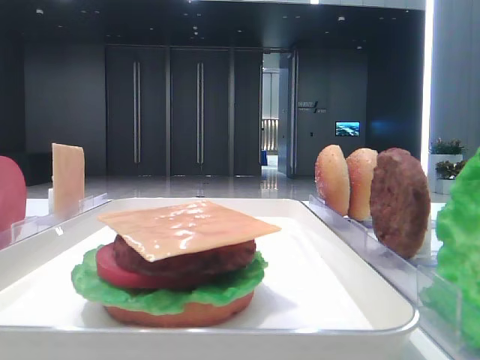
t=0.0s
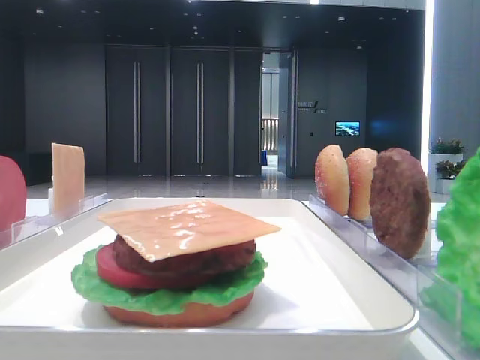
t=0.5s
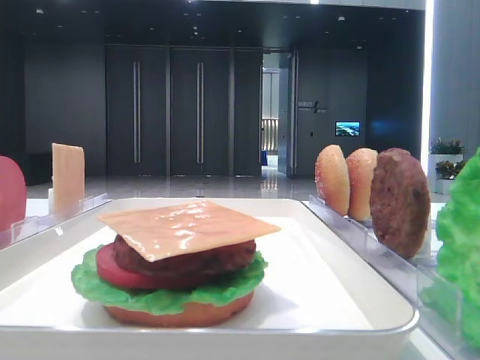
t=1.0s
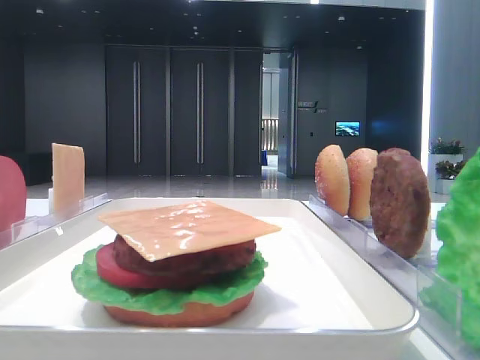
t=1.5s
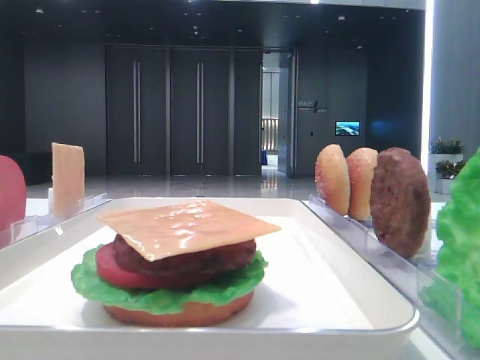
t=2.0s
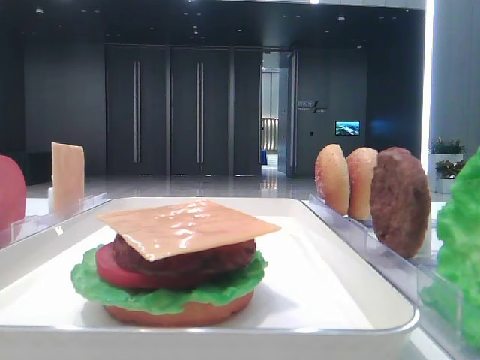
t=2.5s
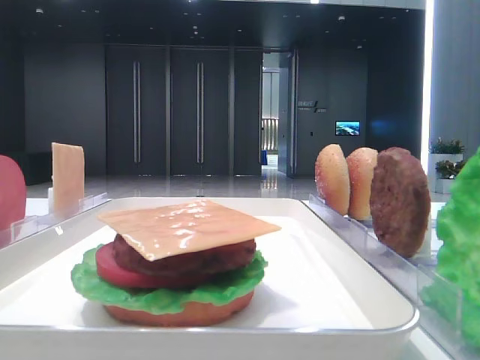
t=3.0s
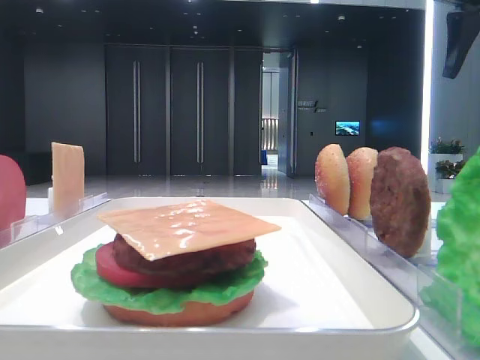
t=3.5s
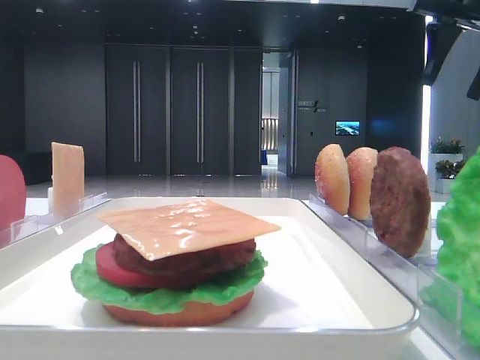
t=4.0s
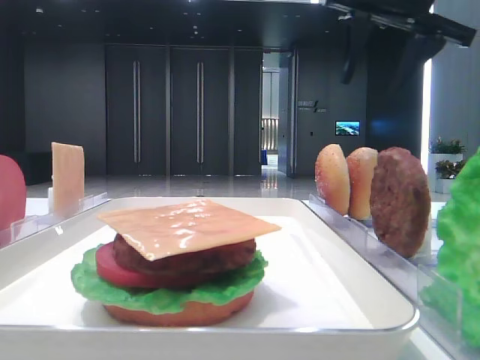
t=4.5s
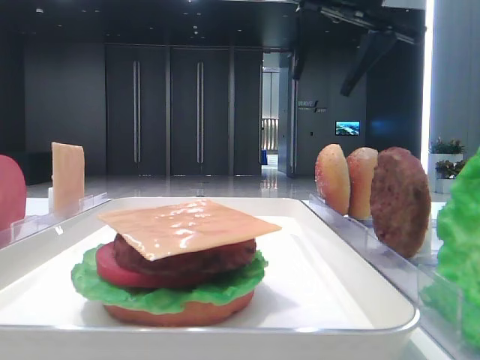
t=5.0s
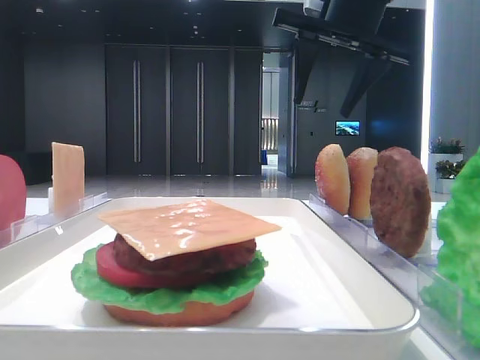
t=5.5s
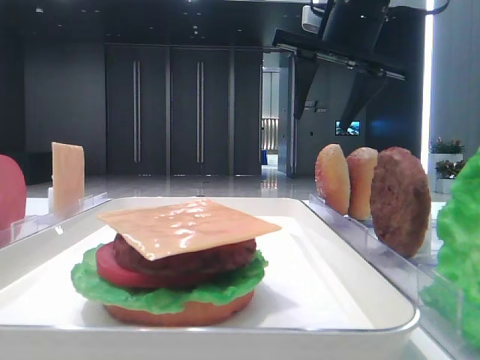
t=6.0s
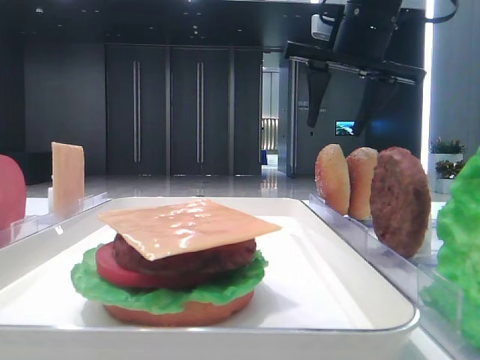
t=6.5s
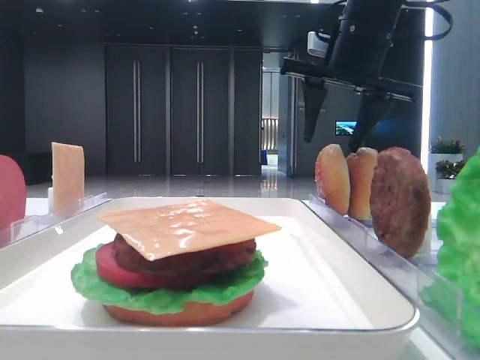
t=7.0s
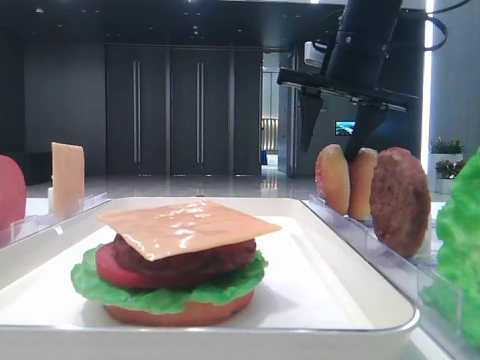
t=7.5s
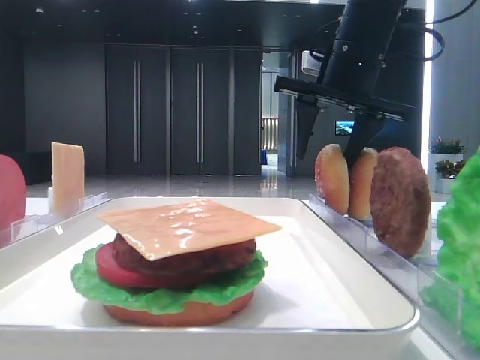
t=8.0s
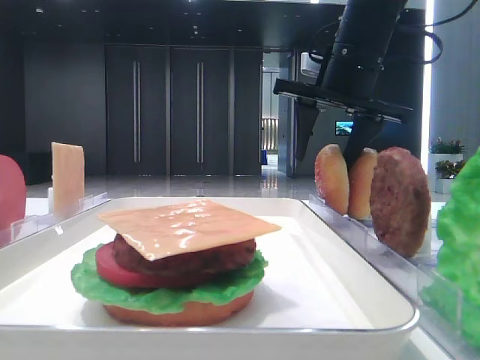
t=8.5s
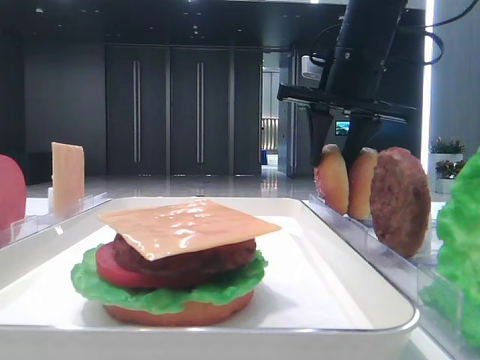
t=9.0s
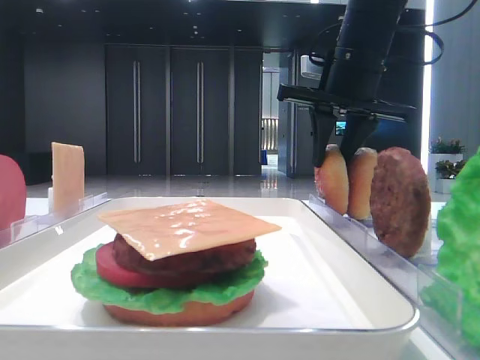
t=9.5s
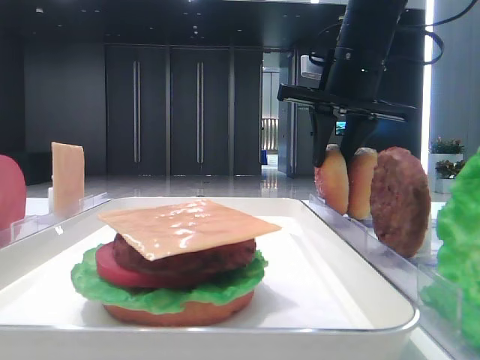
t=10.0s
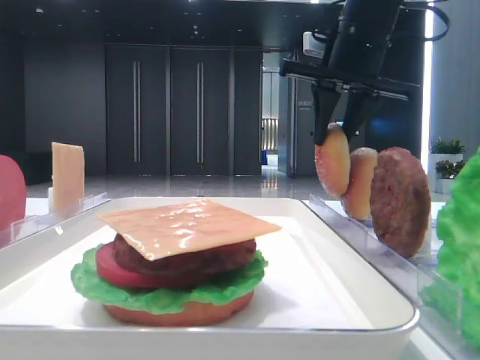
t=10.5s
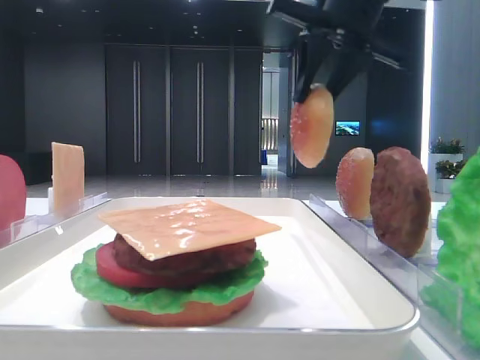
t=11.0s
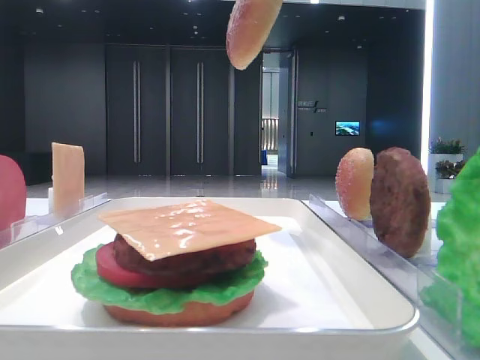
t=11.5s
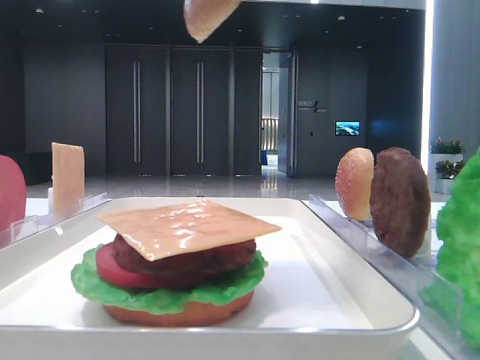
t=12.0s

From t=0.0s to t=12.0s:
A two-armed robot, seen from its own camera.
Step, from t=0.0s to t=9.0s: Pick up the top bread slice with the right hand.
From t=2.0s to t=4.0s: The right gripper heads forward, covering some 25 cm.
From t=4.0s to t=6.0s: The right gripper shifts roughly 15 cm to the left.
From t=6.0s to t=8.0s: There are only small adjustments of the grippers.
From t=8.0s to t=10.0s: The right gripper closes up.
From t=10.0s to t=12.0s: The right gripper is displaced backward and upward by roughly 20 cm.

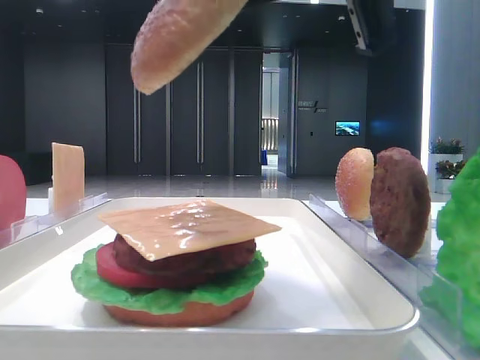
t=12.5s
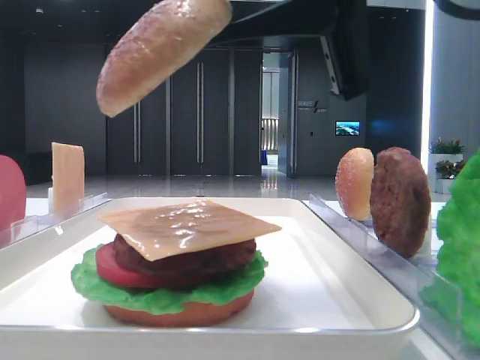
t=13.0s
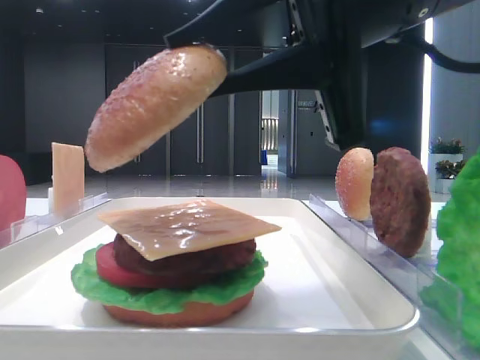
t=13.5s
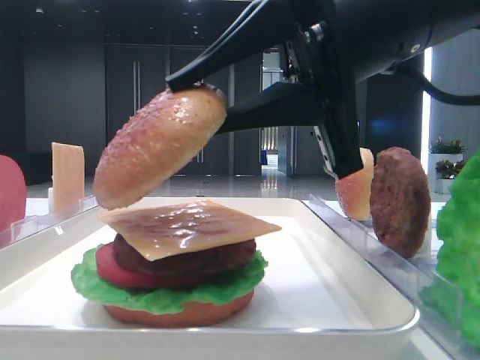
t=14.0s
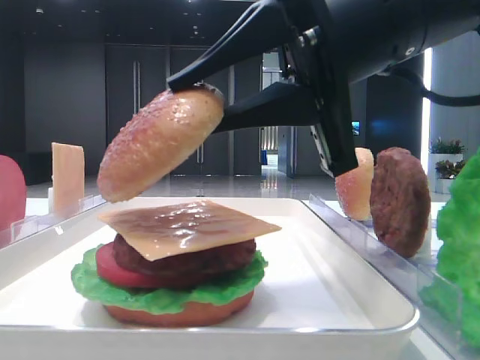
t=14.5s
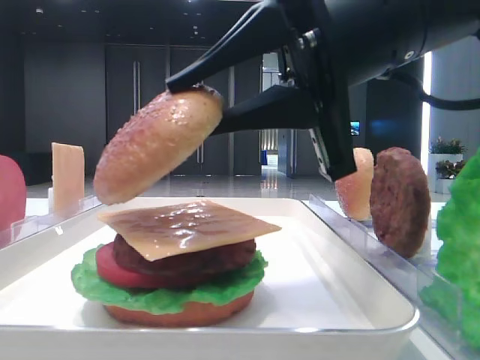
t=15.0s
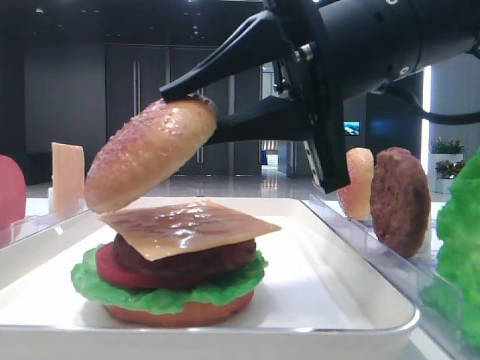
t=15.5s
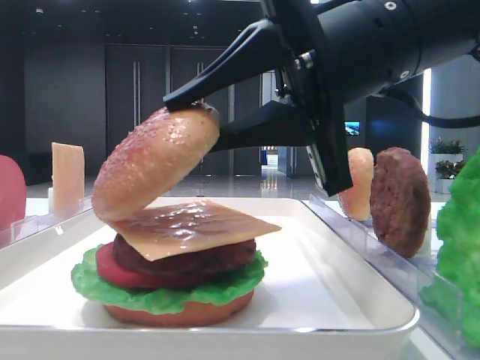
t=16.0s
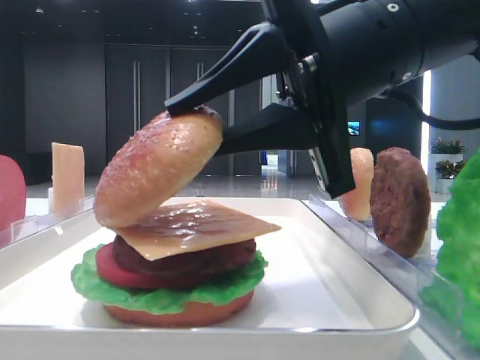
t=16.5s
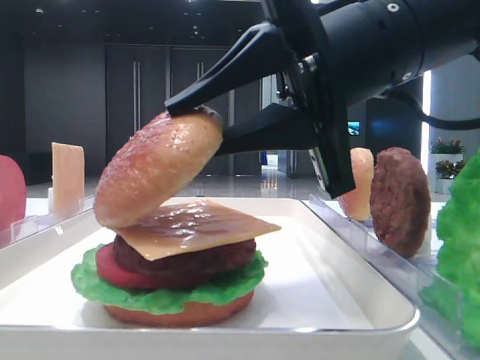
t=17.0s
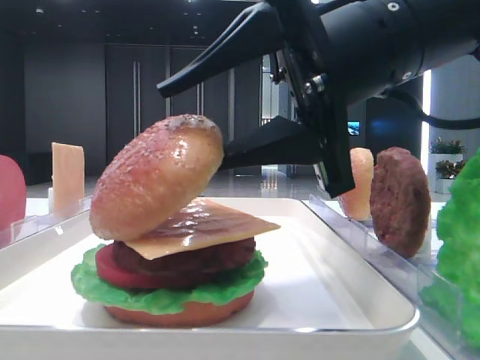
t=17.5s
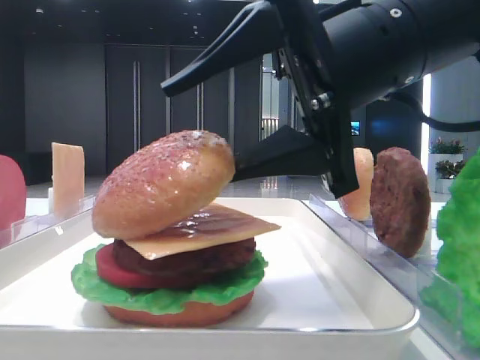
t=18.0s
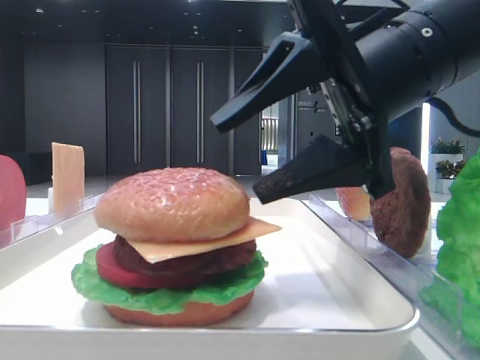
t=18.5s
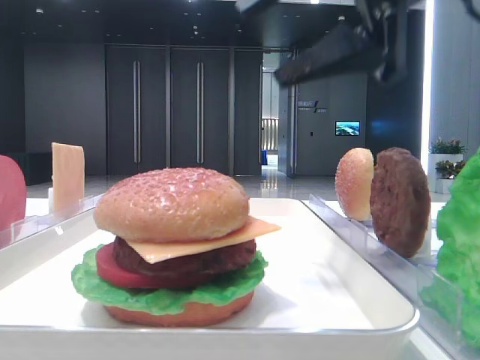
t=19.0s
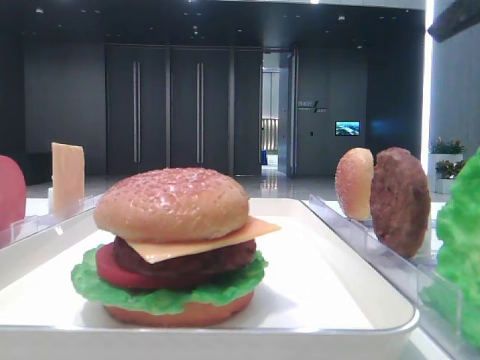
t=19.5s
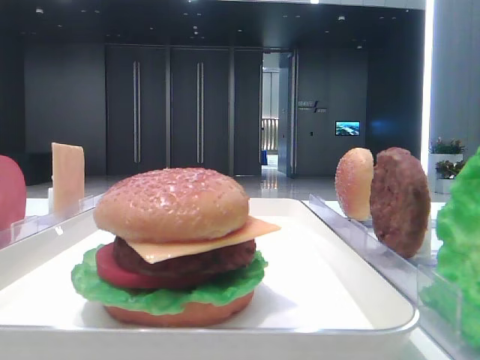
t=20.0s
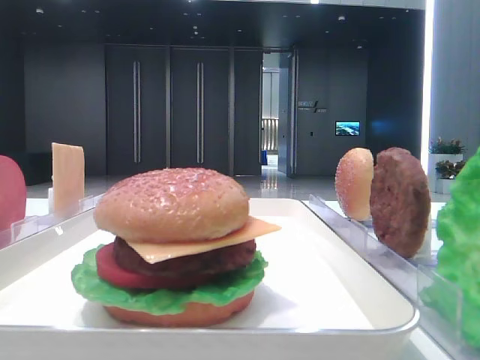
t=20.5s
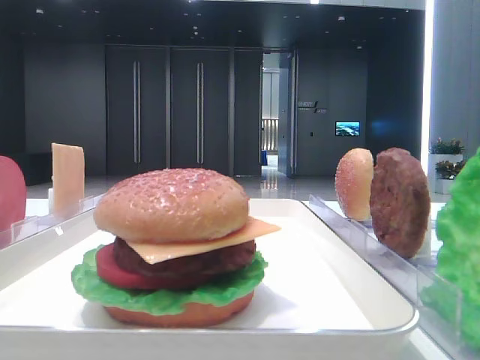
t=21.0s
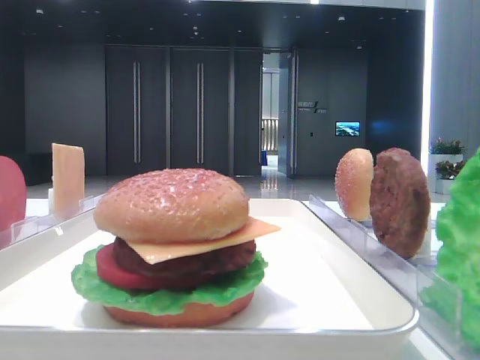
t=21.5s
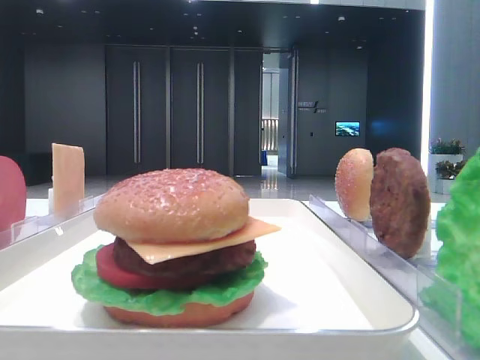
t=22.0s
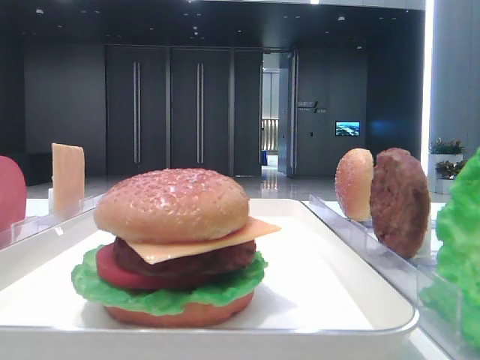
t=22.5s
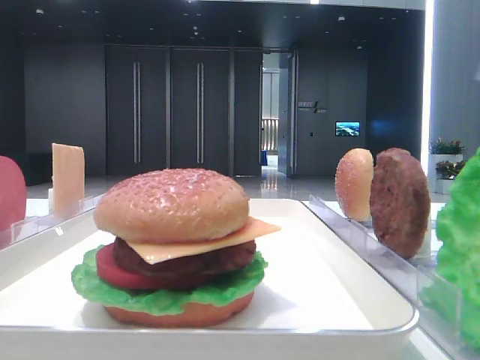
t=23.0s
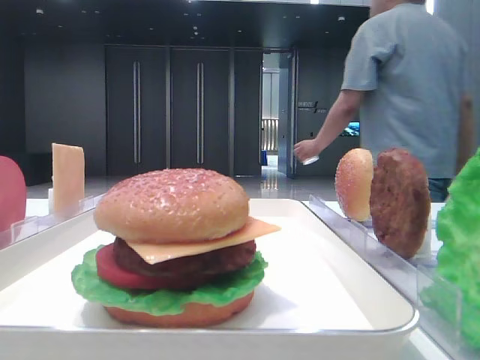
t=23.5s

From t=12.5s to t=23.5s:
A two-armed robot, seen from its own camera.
Step, from t=12.5s to t=18.0s: Place the top bread slice on the cheese with the right hand.
From t=12.5s to t=14.5s: The right gripper travels downward by some 10 cm.
From t=14.5s to t=16.0s: Both grippers stay put.
From t=16.0s to t=18.0s: The right gripper opens.
From t=18.0s to t=20.0s: The right gripper heads to the right and upward, covering approximately 25 cm.
From t=21.5s to t=23.5s: The grippers stay close to where they were, moving slightly.

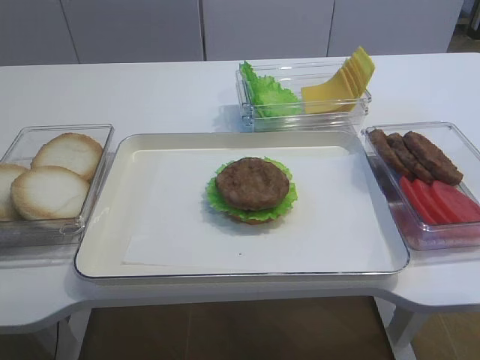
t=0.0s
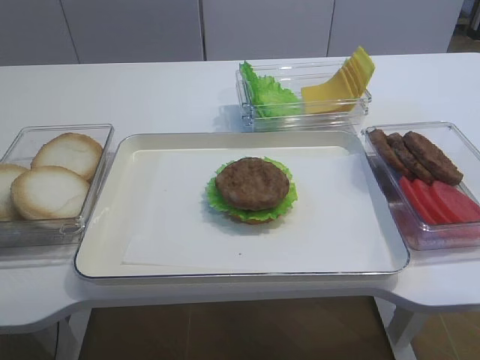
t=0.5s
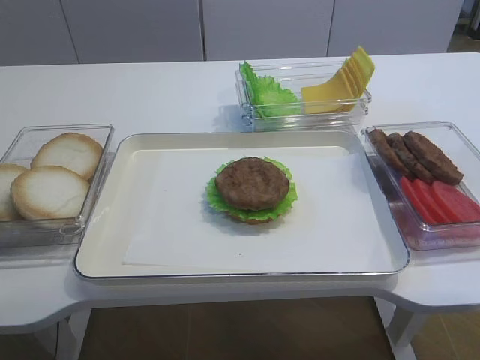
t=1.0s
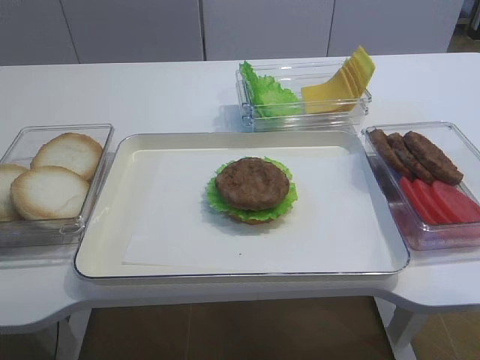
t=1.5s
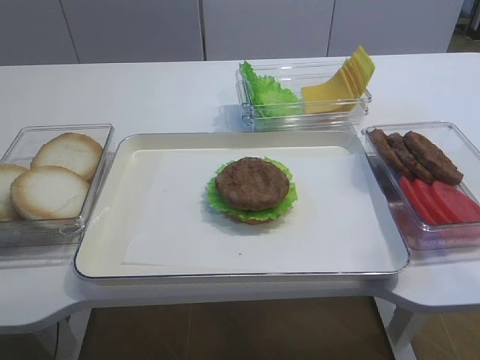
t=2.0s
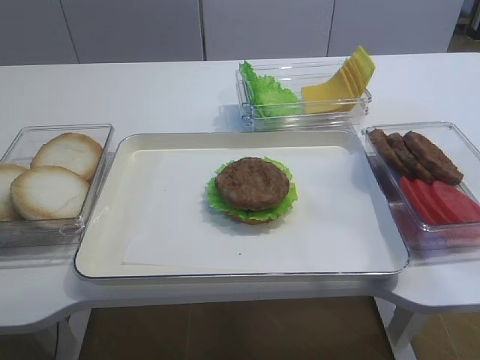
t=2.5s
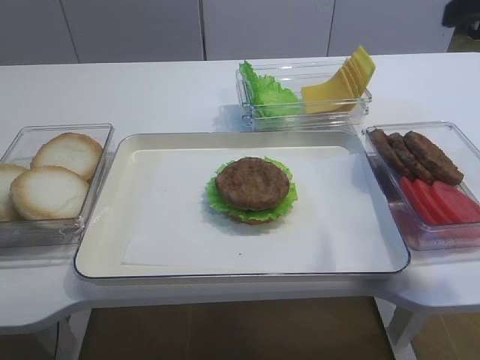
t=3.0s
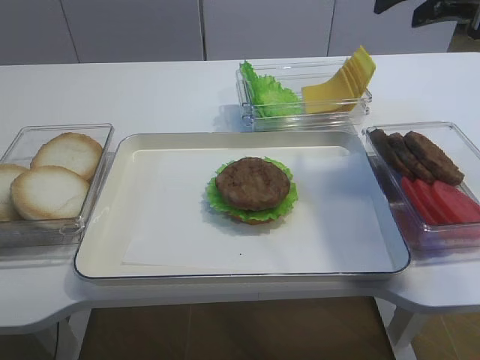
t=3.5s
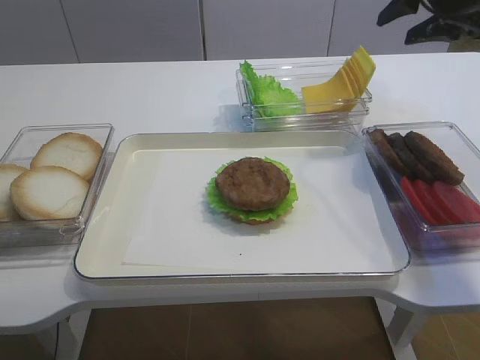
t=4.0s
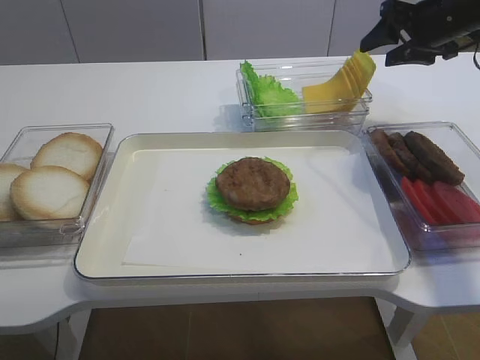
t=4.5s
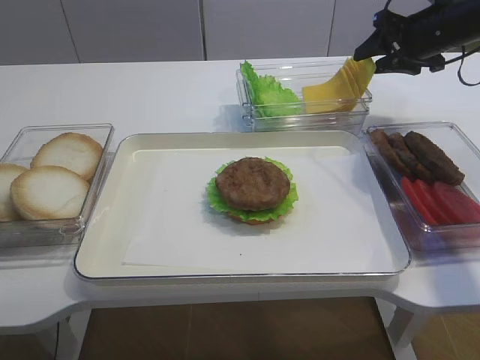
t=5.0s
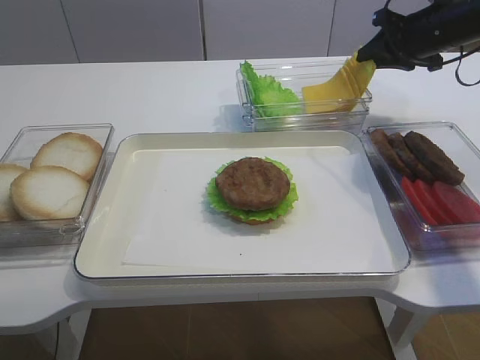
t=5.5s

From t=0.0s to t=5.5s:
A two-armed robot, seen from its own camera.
From t=2.0s to t=3.5s: The right gripper shifts roughly 35 cm forward.
From t=3.5s to t=5.5s: The right gripper moves downward and forward, roughly 15 cm, and closes up.
